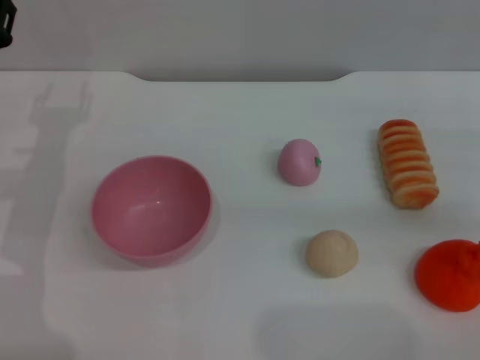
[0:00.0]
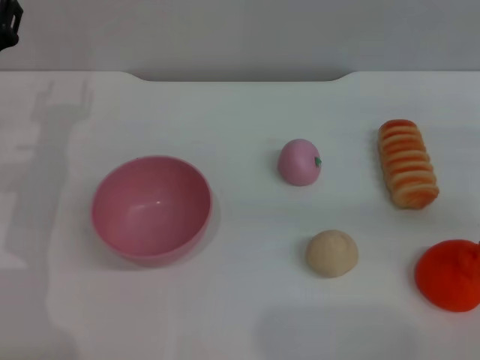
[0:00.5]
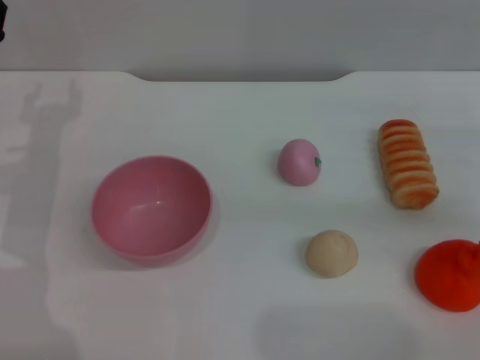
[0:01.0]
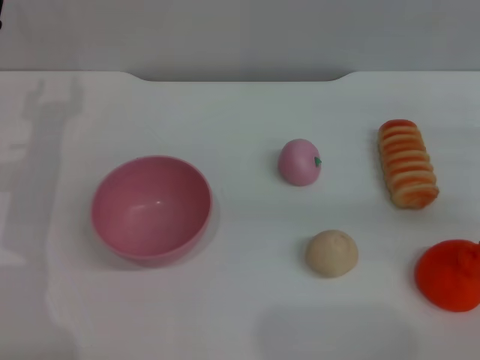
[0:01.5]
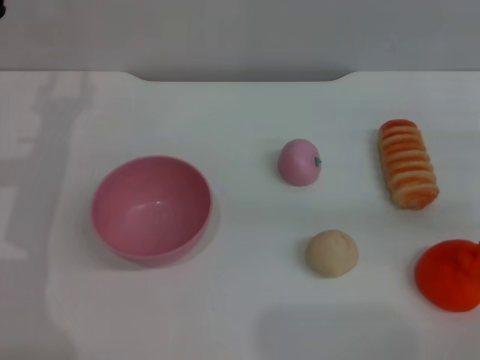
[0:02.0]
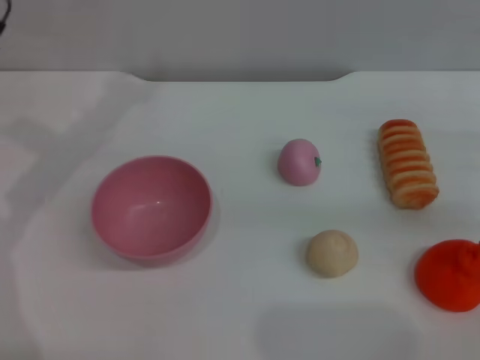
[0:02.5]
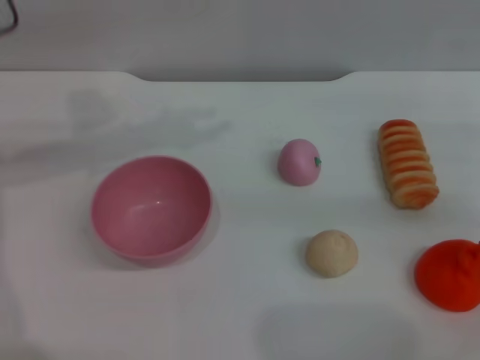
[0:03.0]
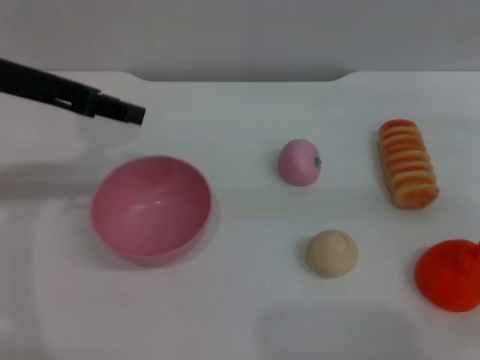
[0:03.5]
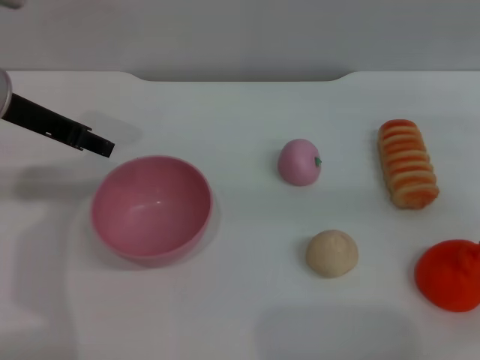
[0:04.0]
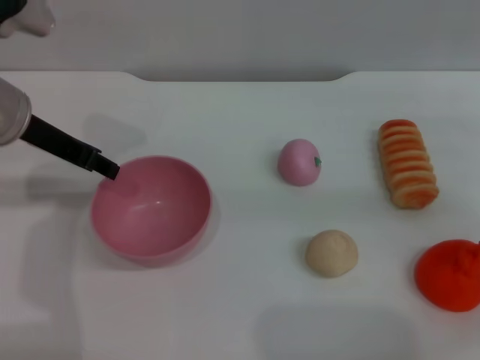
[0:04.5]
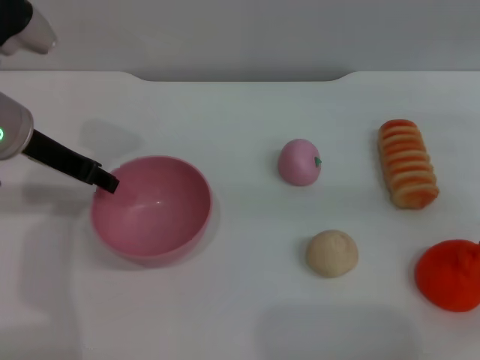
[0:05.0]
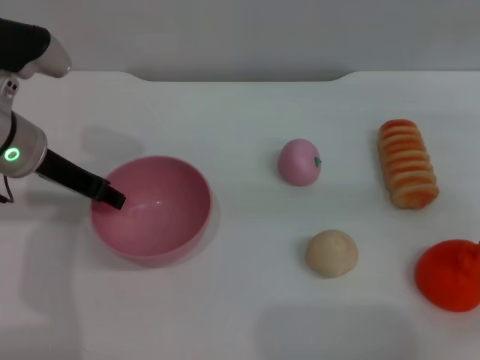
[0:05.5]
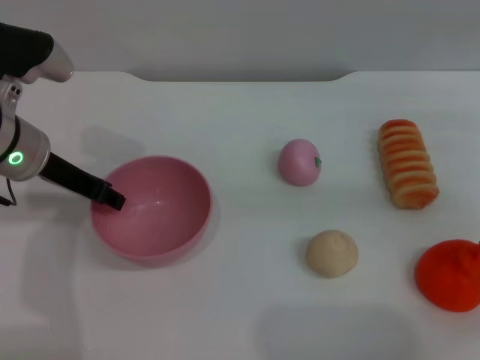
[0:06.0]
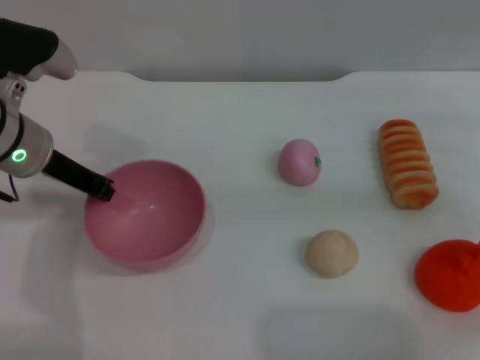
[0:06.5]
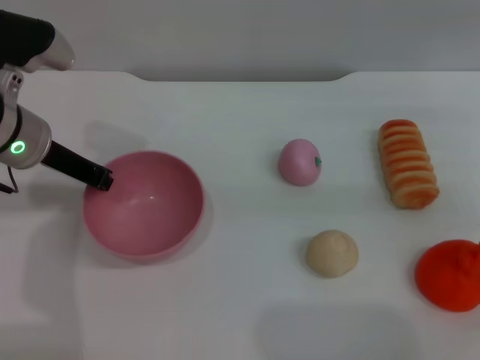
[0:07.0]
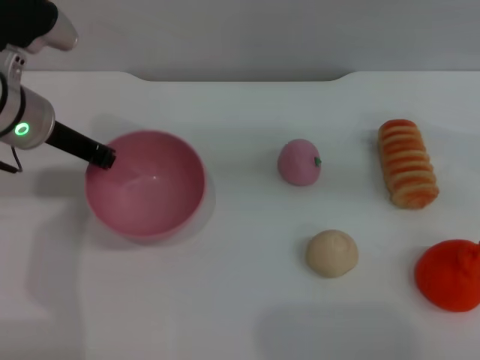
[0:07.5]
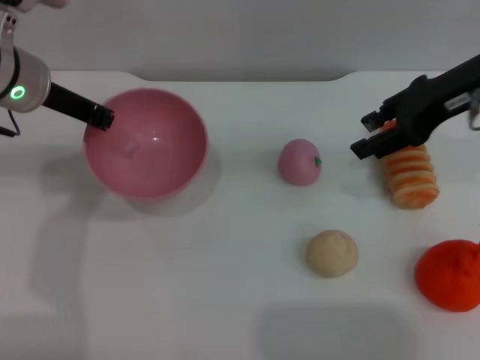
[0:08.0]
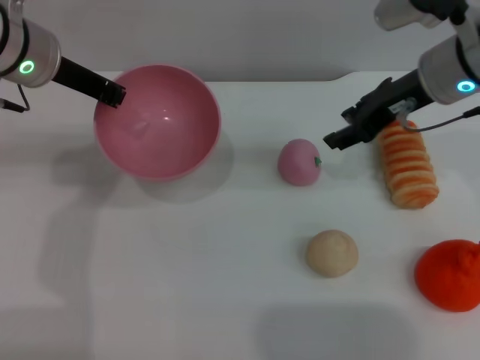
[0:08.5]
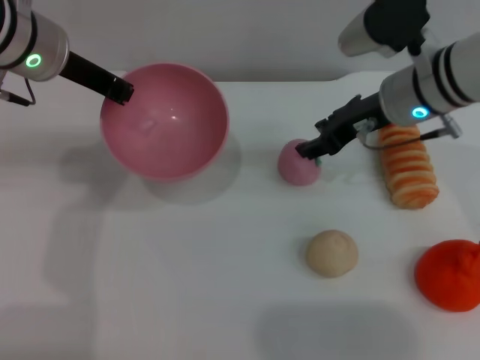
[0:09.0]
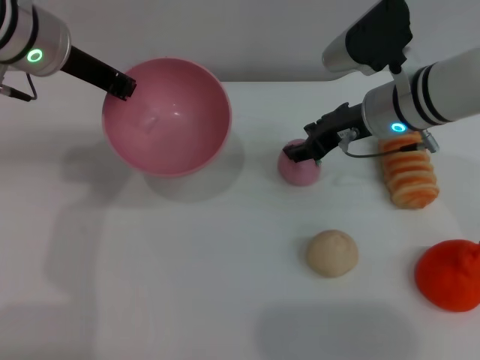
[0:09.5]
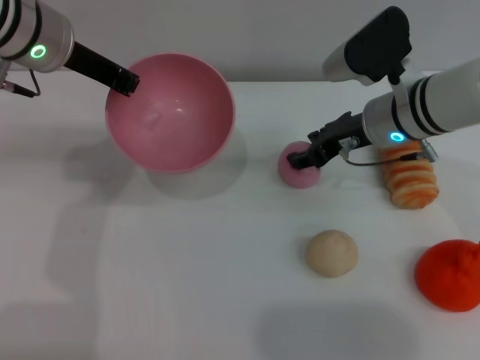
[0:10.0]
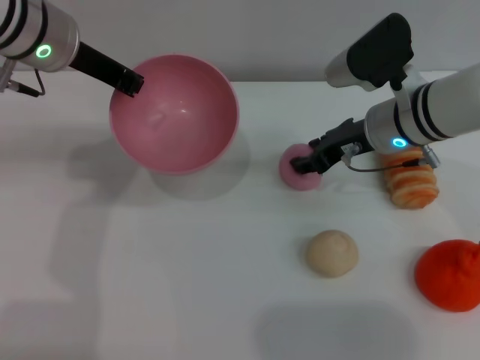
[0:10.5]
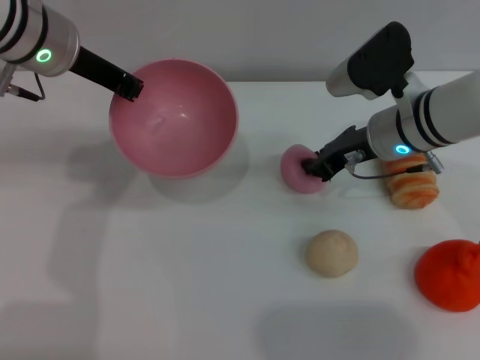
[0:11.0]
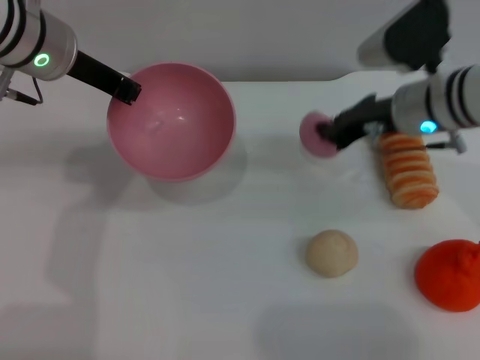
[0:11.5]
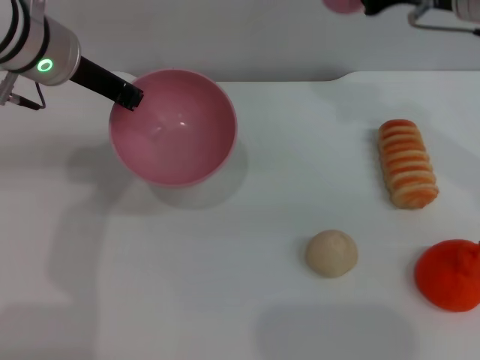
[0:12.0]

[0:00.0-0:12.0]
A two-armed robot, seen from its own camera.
Task of the whole recording: put the peach into the pink bowl and pour it out repeatedly.
Step, 0:00.0 to 0:07.5: Pick up the bowl with the left gripper.
Step, 0:08.0 to 0:11.5: Pick up the peach with the right gripper.
0:02.0 to 0:04.0: The left gripper travels upward by approximately 10 cm.
0:04.0 to 0:06.0: The left gripper is displaced downward by roughly 5 cm.
0:06.0 to 0:08.0: The right gripper goes approximately 15 cm to the left and upward; the left gripper changes place by about 5 cm, and closes up.
0:08.0 to 0:10.0: The right gripper goes roughly 15 cm downward and to the left.
0:10.0 to 0:12.0: The right gripper goes about 15 cm upward, and closes its fingers.

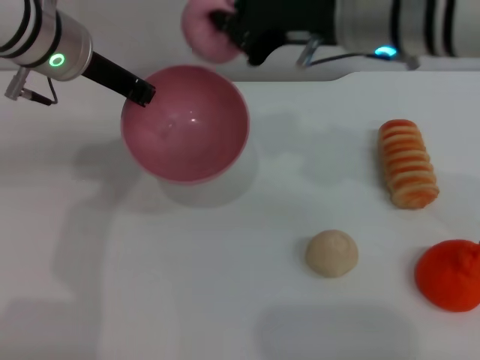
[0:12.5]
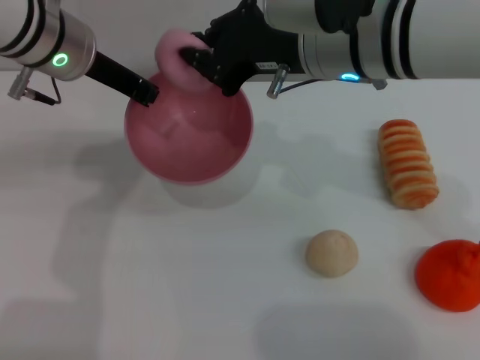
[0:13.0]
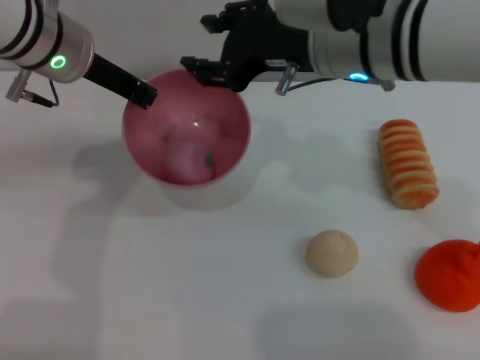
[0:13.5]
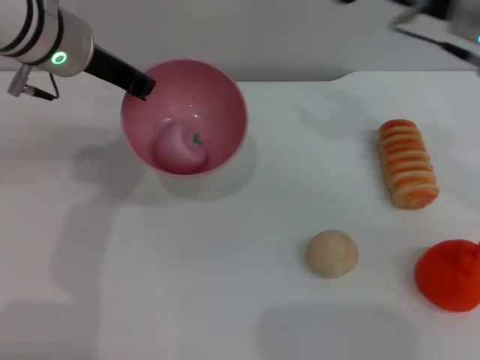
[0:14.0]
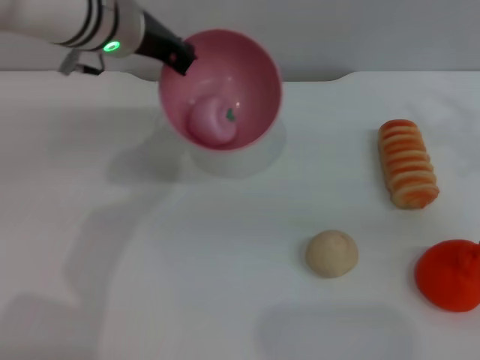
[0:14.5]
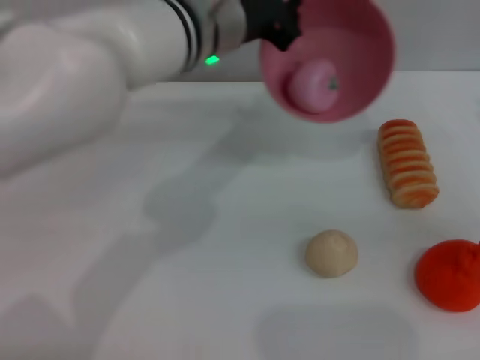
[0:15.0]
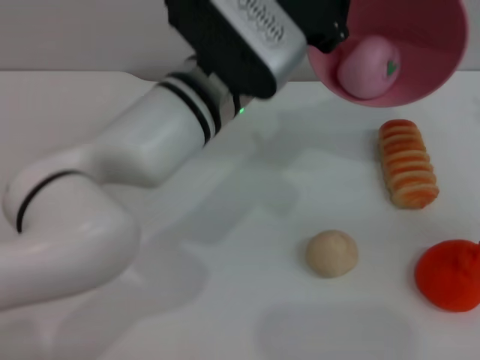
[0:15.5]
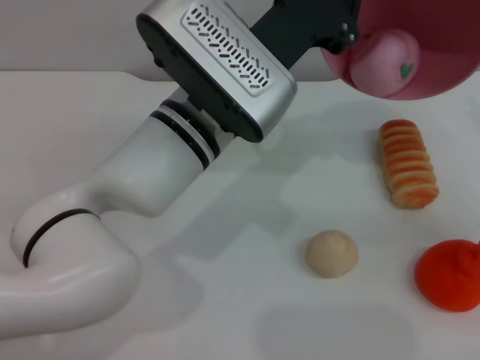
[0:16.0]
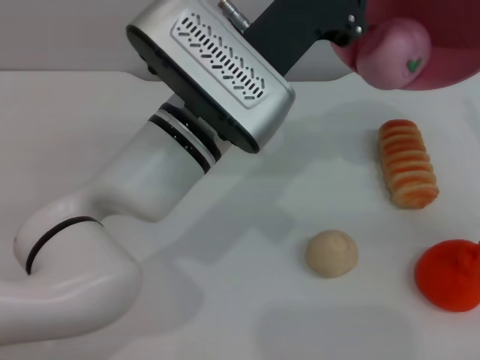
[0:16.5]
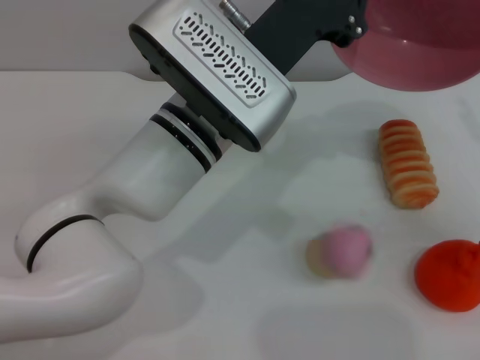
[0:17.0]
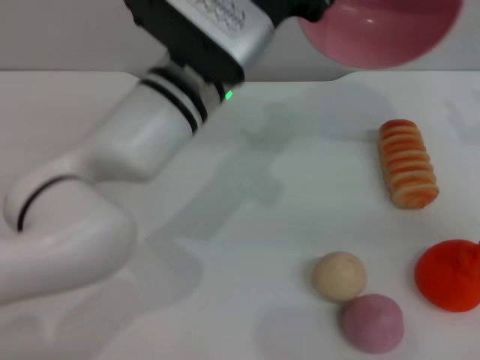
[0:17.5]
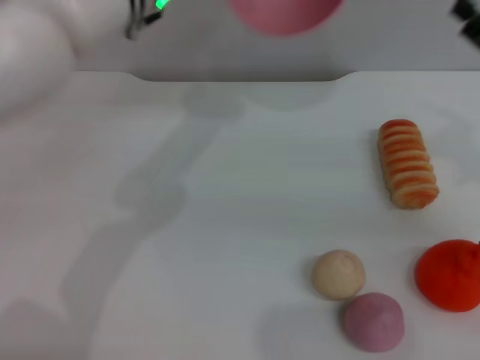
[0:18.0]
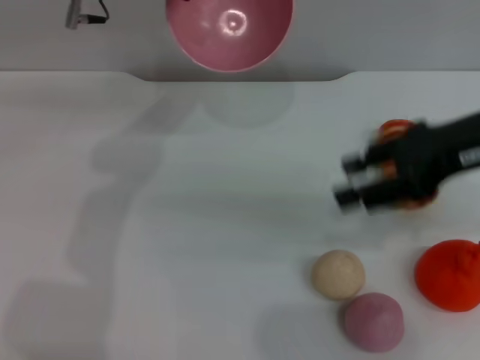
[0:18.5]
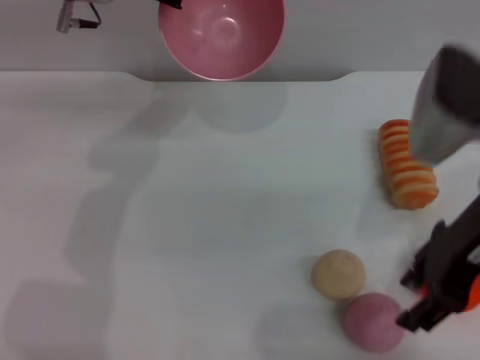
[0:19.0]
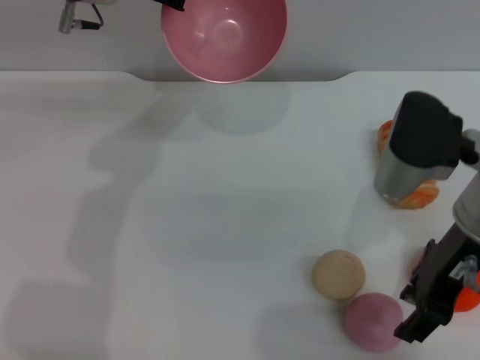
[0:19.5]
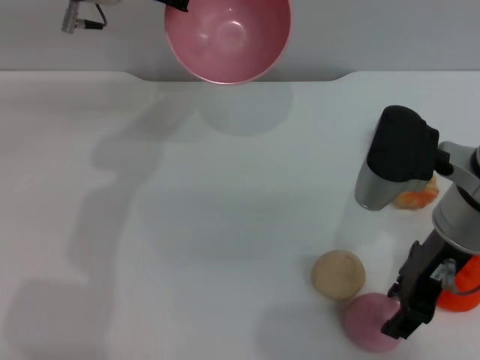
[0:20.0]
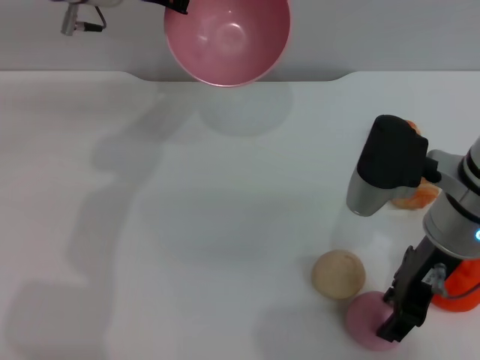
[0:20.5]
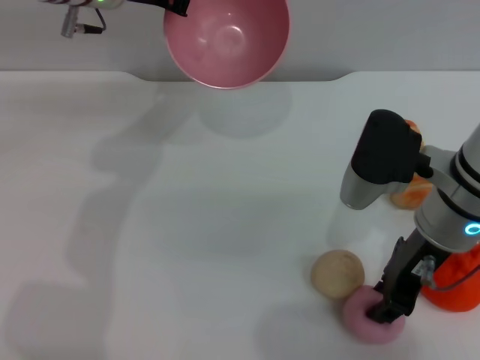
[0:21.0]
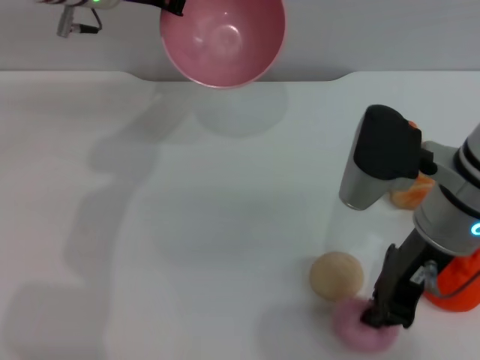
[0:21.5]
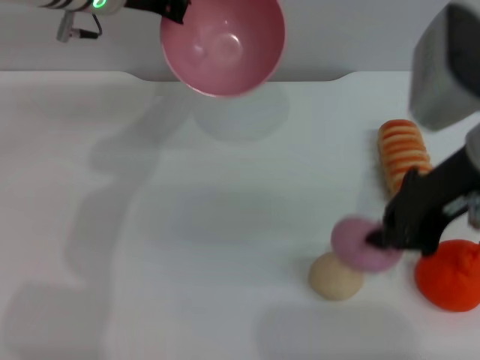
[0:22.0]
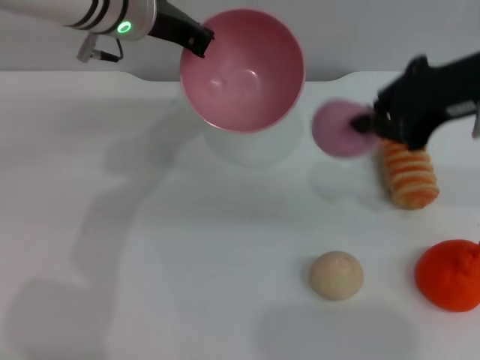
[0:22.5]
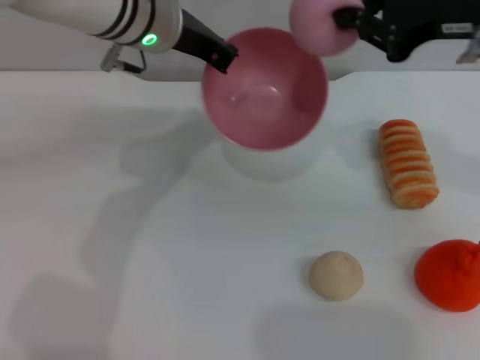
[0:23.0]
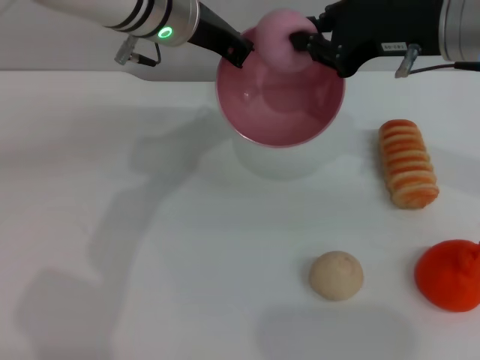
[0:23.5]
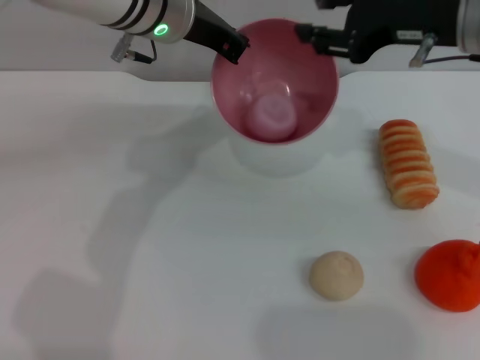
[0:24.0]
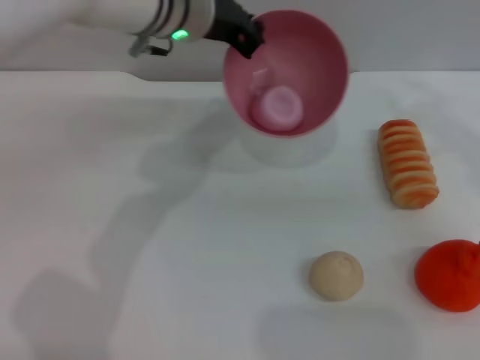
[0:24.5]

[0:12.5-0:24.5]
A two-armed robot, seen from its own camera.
Task of the whole recording: put the peach into the pink bowl and pour it out repeatedly.
Step, 0:14.0 to 0:17.0: Pour the peach out of bowl.
Step, 0:17.5 to 0:21.5: Pick up the peach with the right gripper.
0:12.5 to 0:14.5: The right gripper shifts approximately 20 cm to the right, and opens, while the left gripper changes place by some 5 cm.
0:14.5 to 0:16.5: The left gripper is displaced backward and to the right by roughly 15 cm.
0:16.5 to 0:18.5: The left gripper shifts about 20 cm forward, to the left and upward. The right gripper goes some 15 cm to the left and upward.
0:18.5 to 0:20.5: The right gripper moves downward and to the left, about 10 cm.
0:20.5 to 0:22.5: The right gripper shifts some 10 cm upward, and closes its fingers.
0:22.5 to 0:24.5: Both grippers move to the right, about 5 cm. The right gripper opens.

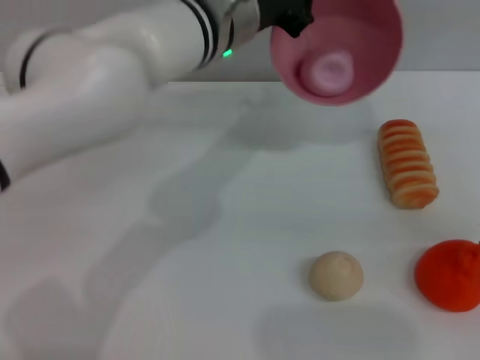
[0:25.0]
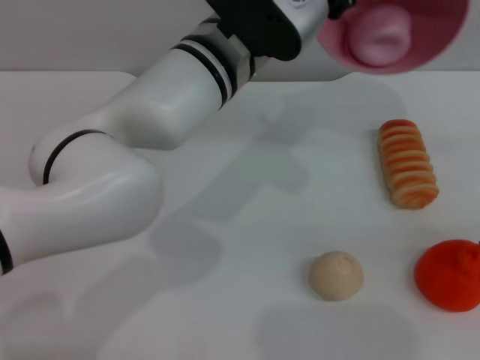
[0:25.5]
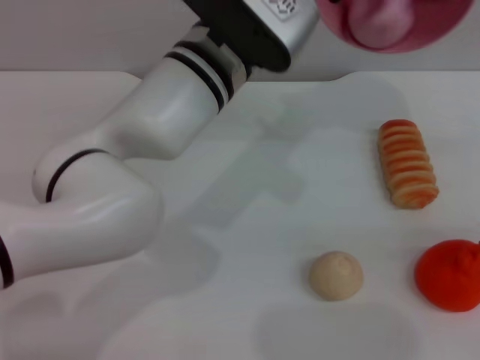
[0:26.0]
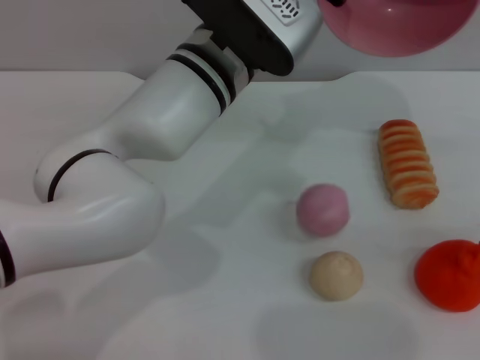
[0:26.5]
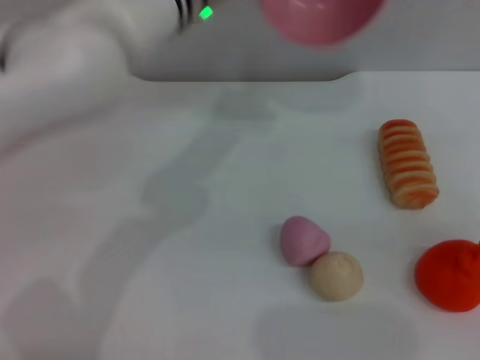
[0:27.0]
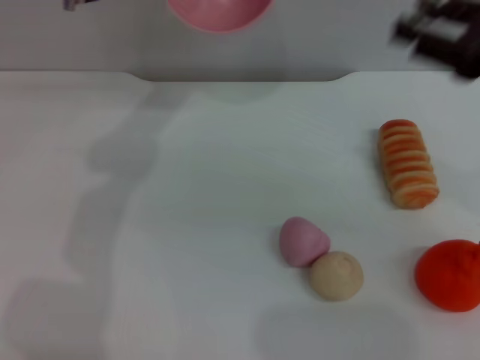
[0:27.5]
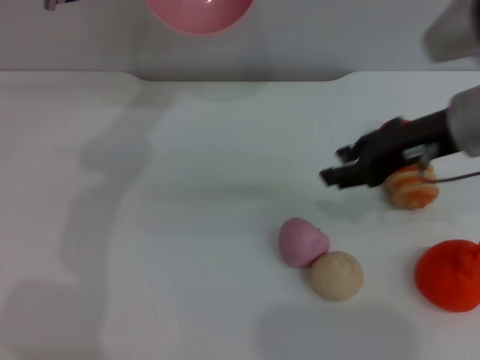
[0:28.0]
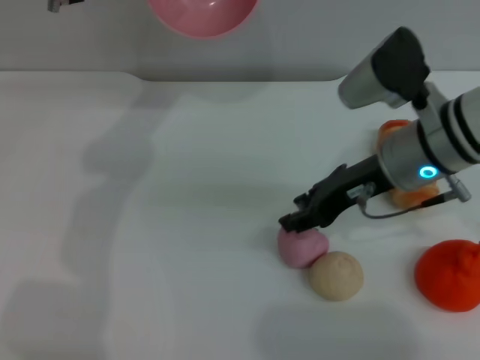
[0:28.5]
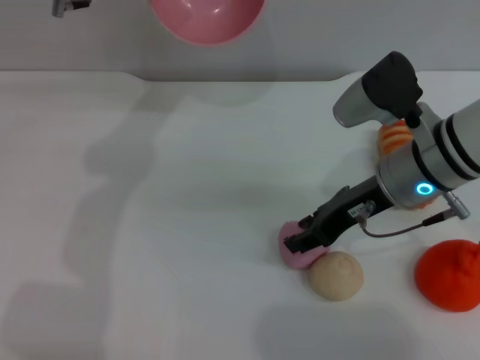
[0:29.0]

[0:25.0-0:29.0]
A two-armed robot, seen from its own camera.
Task of the whole recording: put the peach into the pink bowl and pour it out repeatedly.
Step, 0:25.0 to 0:26.5: Pour the peach out of bowl.
0:27.0 to 0:29.0: The right gripper moves to the left, some 20 cm. The left gripper goes roughly 10 cm to the left.
